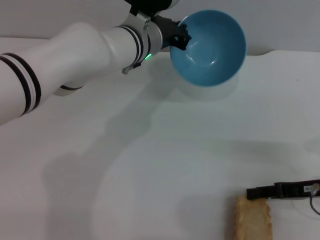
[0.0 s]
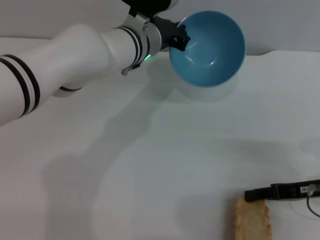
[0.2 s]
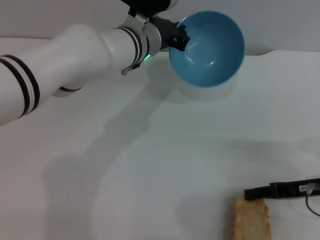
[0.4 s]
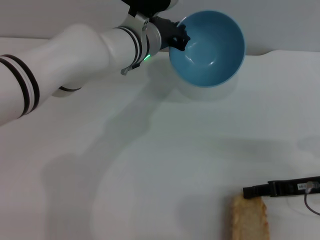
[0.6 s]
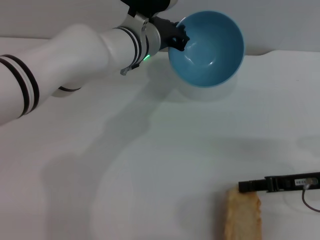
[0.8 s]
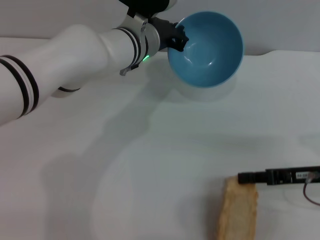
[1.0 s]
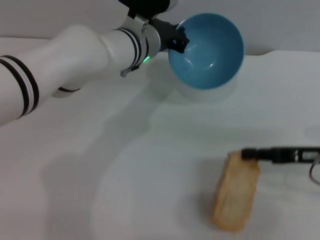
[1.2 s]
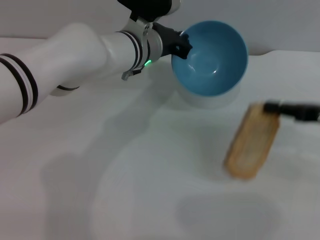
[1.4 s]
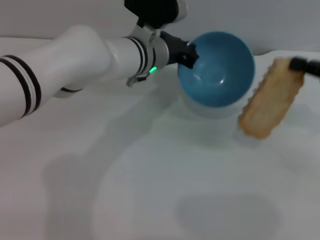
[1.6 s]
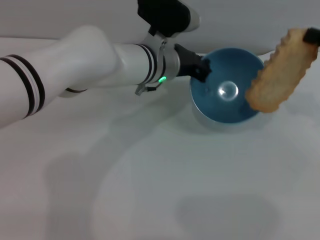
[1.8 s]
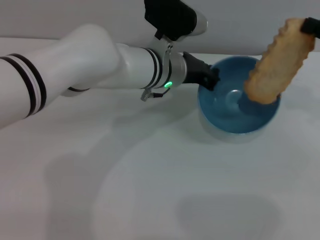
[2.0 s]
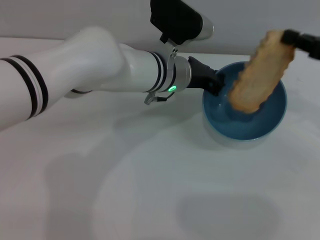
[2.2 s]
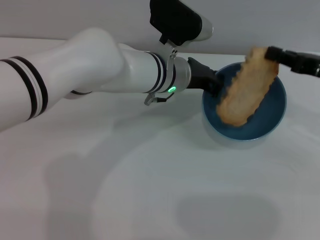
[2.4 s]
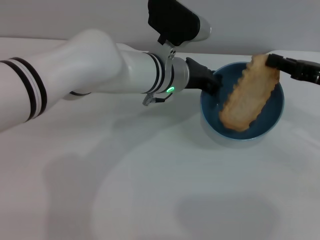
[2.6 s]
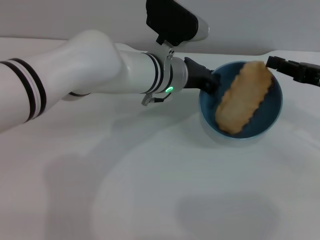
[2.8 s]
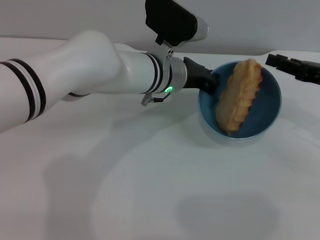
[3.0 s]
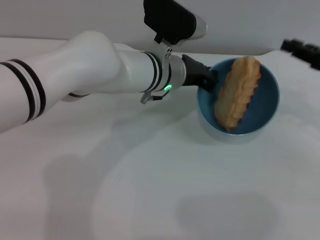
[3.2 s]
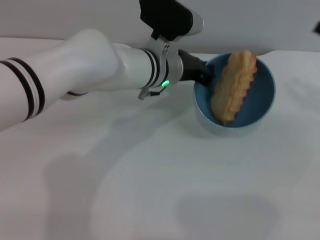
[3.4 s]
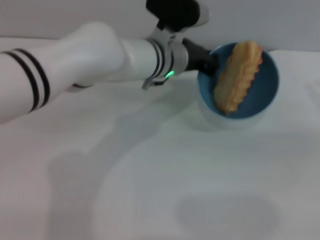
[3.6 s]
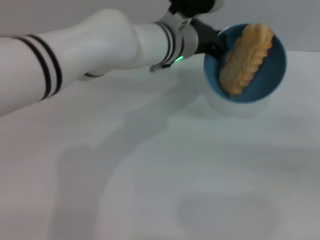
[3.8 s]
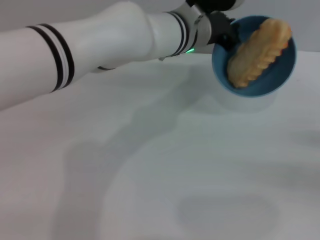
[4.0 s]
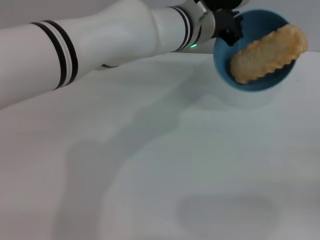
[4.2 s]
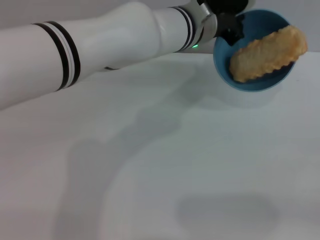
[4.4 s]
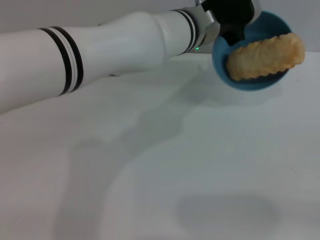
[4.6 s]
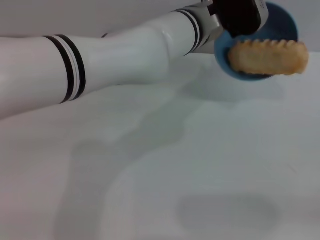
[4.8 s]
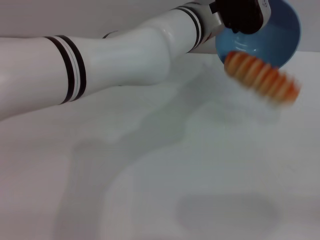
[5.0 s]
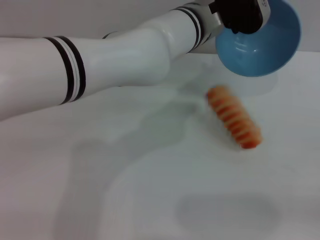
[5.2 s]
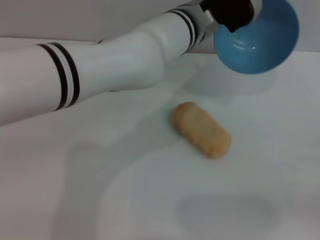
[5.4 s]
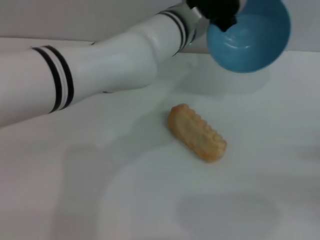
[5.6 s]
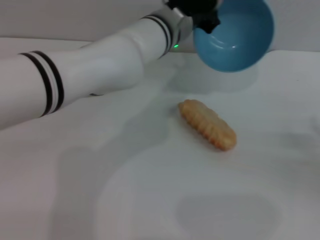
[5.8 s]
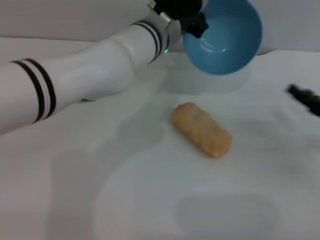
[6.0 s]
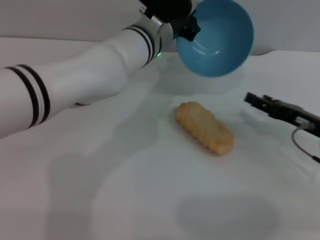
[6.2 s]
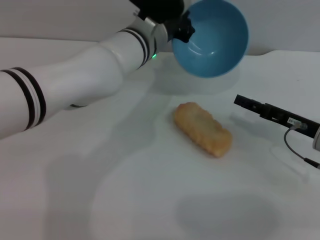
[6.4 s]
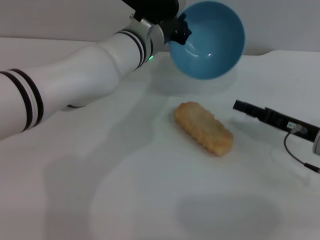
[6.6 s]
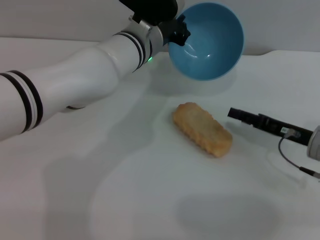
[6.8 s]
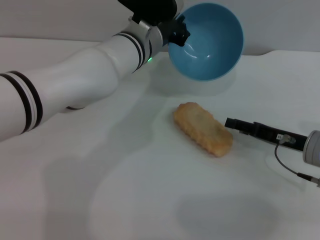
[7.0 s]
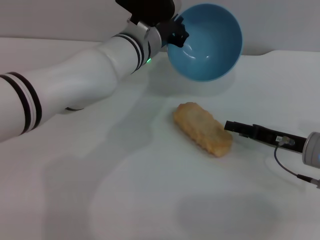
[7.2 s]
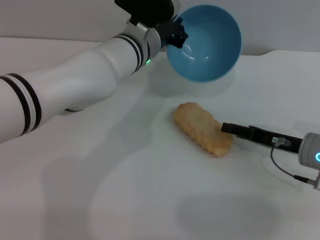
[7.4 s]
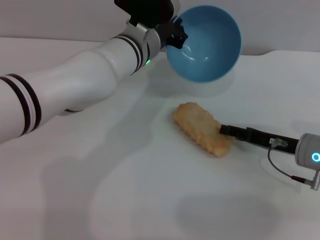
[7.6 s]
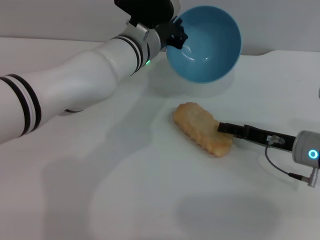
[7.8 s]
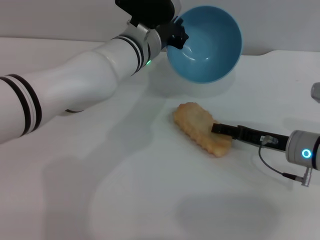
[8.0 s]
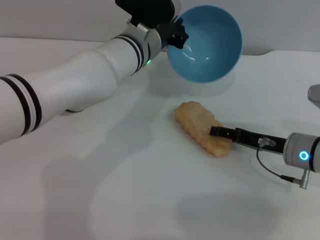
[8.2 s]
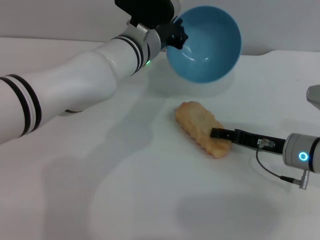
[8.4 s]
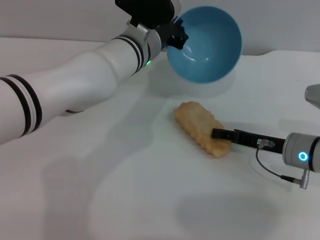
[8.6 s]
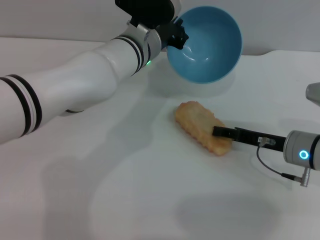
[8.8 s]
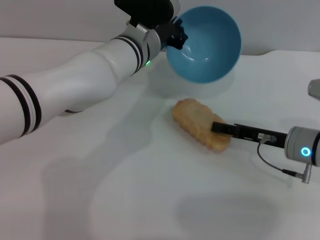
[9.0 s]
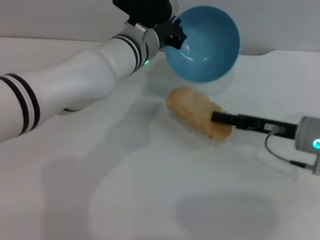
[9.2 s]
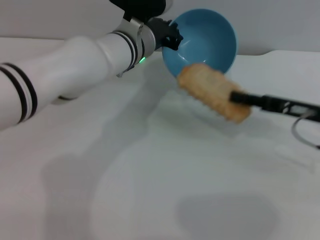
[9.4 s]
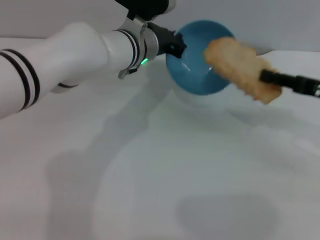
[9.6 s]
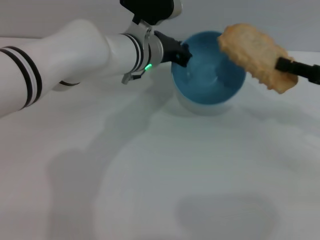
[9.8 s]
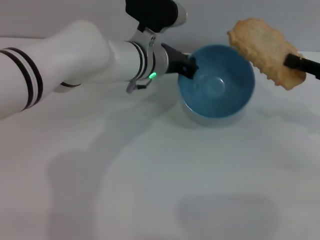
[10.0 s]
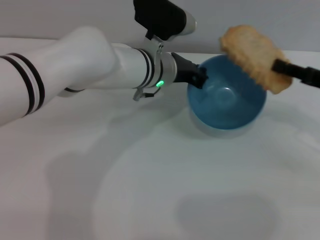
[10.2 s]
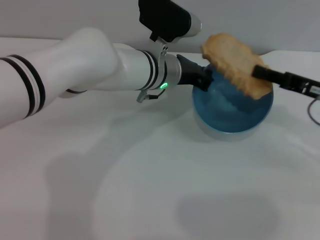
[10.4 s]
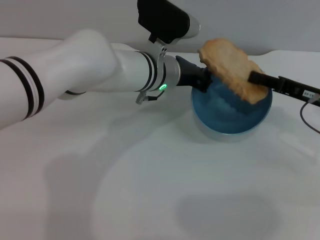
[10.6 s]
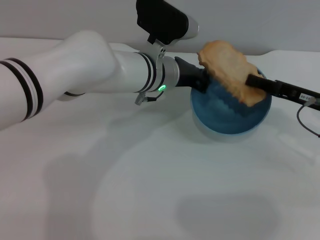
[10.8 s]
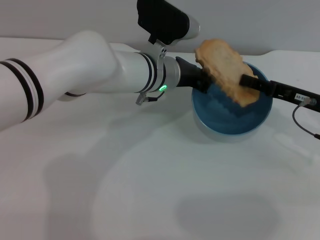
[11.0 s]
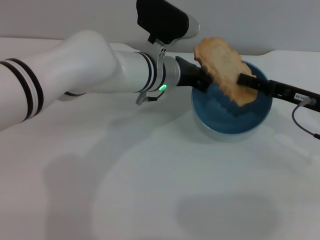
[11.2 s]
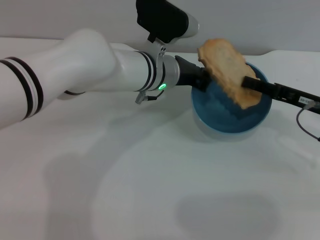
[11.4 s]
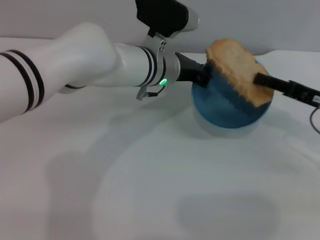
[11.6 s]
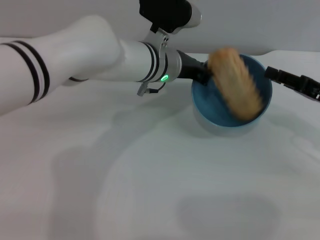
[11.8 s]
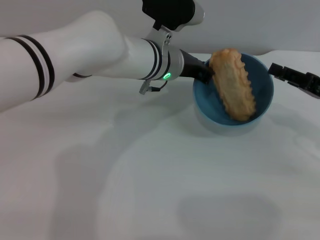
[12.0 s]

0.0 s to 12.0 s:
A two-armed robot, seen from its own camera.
Task of the whole recording: put the bread into the blue bowl and pour it out repeatedly.
Step, 1.8 to 3.0 s: Place the bread into the bowl.
Step, 3.2 to 5.2 s: Pour the bread out of the bowl.
Step, 5.4 to 9.2 s: Pick up the bread with the right gripper.
Step, 9.6 to 11.8 s: Place the bread into the bowl.
0.0 to 1.6 s: The right gripper shifts some 10 cm upward, and closes up.
1.6 to 3.0 s: The grippers stay close to where they were, moving slightly.
3.0 to 4.4 s: The right gripper travels backward, to the right and downward by roughly 20 cm, and opens. Meanwhile the left gripper moves upward, approximately 5 cm.
4.4 to 6.0 s: The left gripper shifts by about 5 cm, while the right gripper moves forward and to the left, approximately 15 cm, and opens.
6.0 to 7.6 s: The right gripper heads to the left, covering about 5 cm.
7.6 to 9.0 s: The right gripper closes its fingers.
9.0 to 10.4 s: The right gripper heads upward and to the right, covering some 10 cm, and closes up.
10.4 to 12.0 s: The right gripper opens.

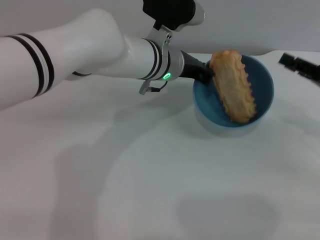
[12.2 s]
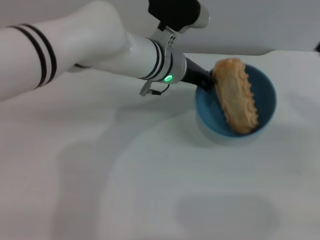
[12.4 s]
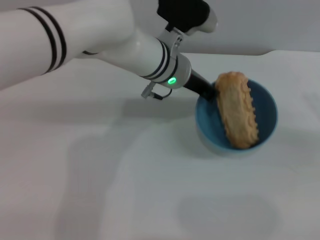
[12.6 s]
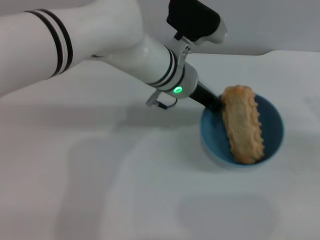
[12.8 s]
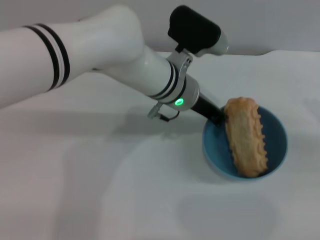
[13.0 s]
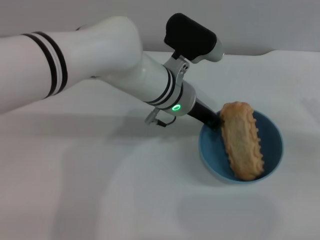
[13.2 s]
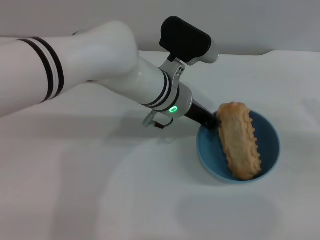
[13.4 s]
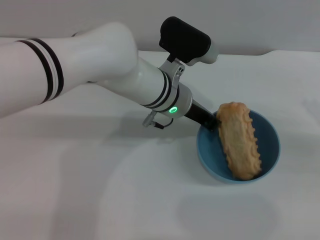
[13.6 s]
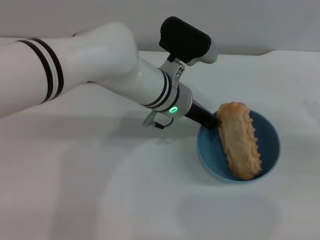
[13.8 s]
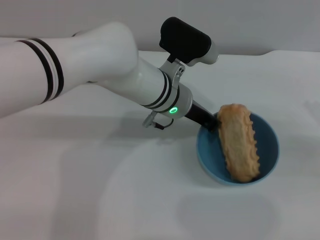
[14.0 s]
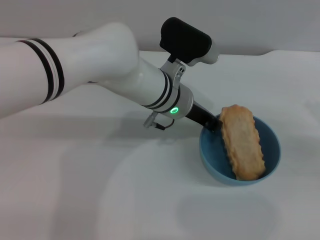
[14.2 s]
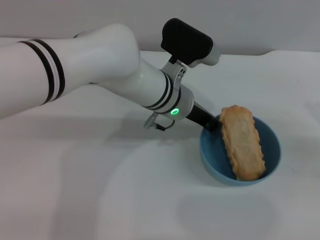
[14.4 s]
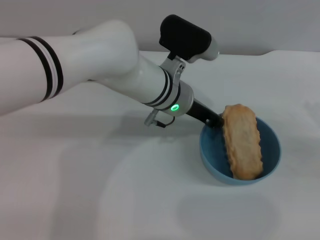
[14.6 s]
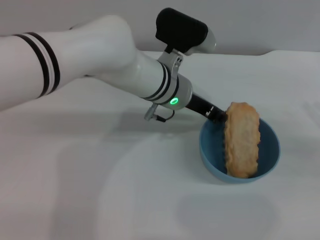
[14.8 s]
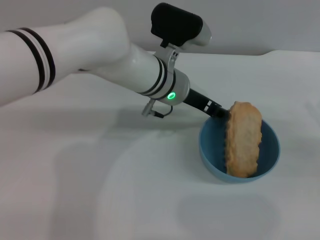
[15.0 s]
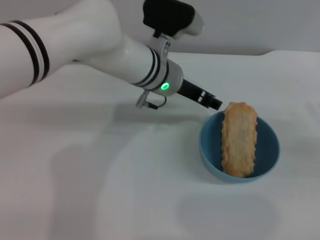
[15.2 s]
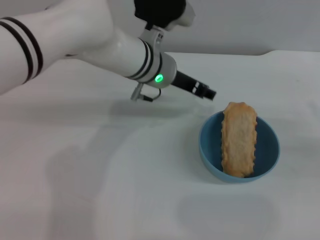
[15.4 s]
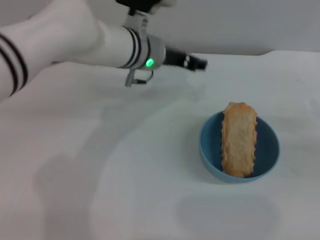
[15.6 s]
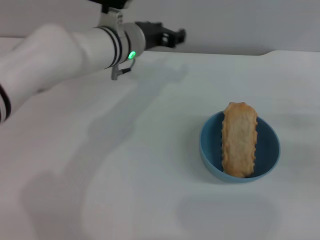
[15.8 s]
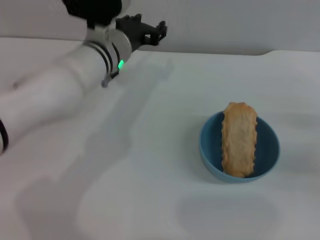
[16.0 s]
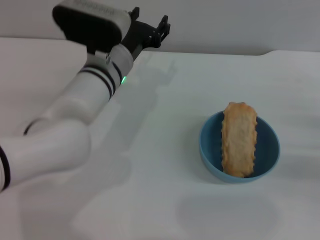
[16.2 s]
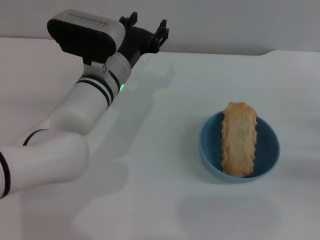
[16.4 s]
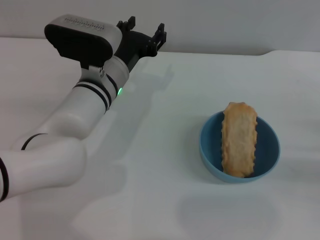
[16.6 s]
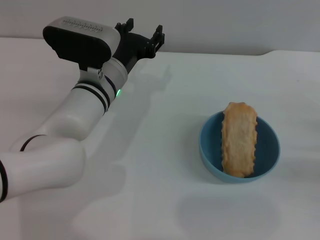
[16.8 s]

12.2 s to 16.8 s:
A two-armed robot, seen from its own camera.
Task of the whole recording: put the bread into the blue bowl and pour it out repeatedly.
Step, 12.2 to 15.4 s: Place the bowl on the table.
12.2 to 13.8 s: The right gripper shifts roughly 5 cm to the right.
13.8 to 15.2 s: The left gripper opens up.
15.2 to 16.8 s: The left gripper travels to the left by approximately 5 cm.
